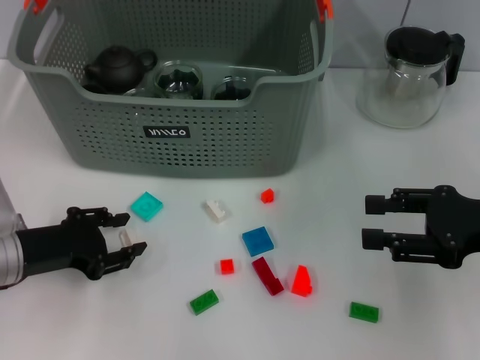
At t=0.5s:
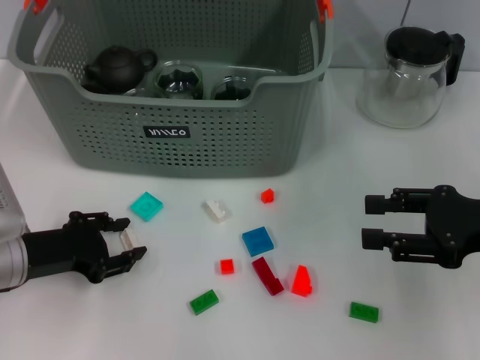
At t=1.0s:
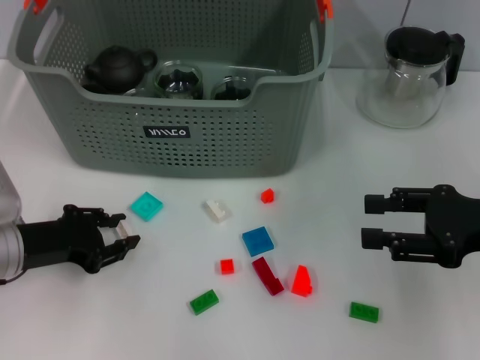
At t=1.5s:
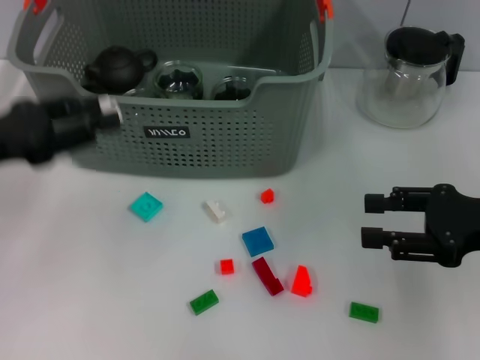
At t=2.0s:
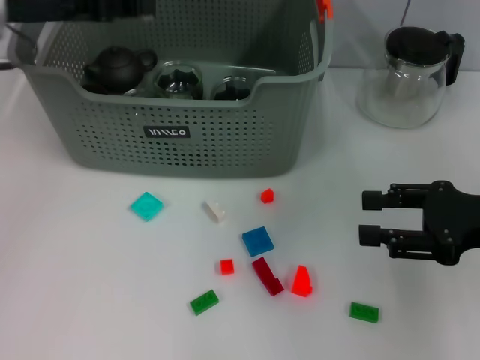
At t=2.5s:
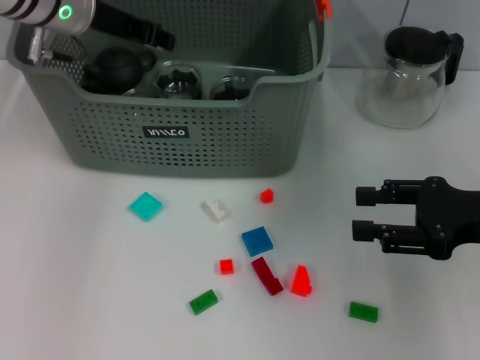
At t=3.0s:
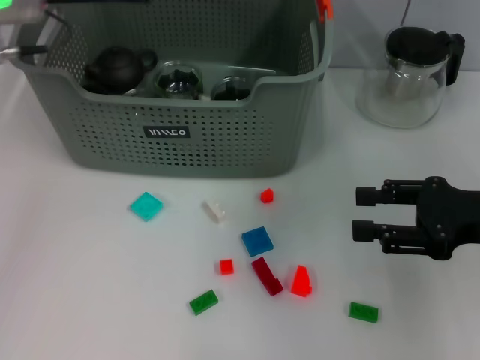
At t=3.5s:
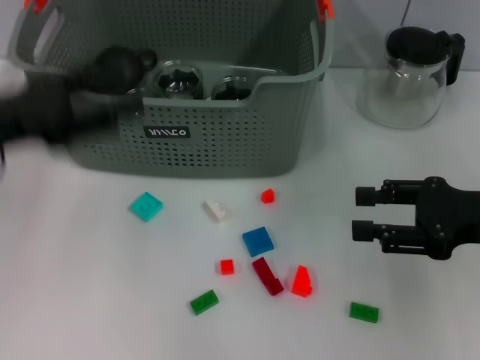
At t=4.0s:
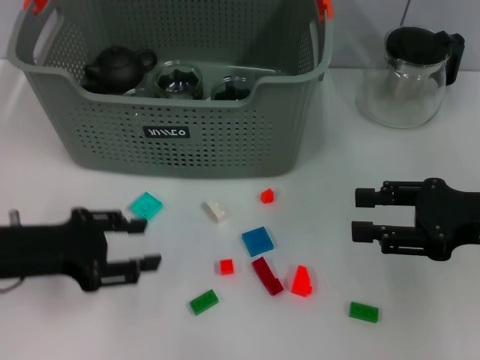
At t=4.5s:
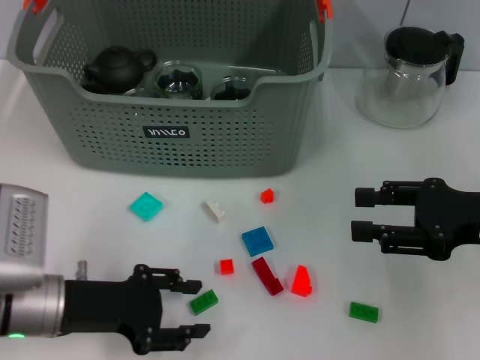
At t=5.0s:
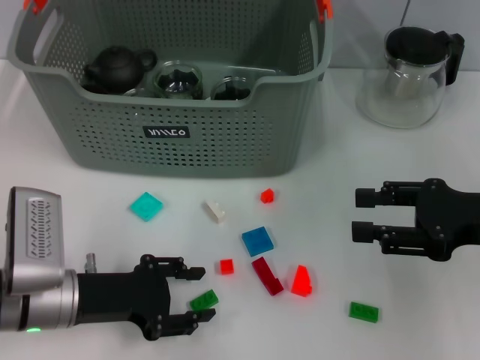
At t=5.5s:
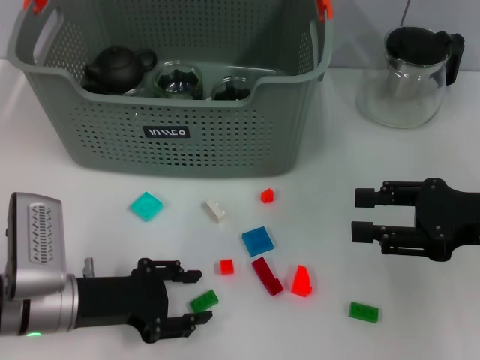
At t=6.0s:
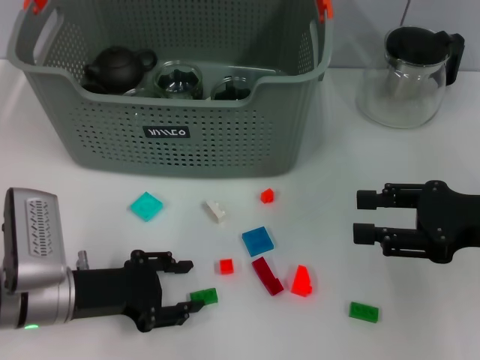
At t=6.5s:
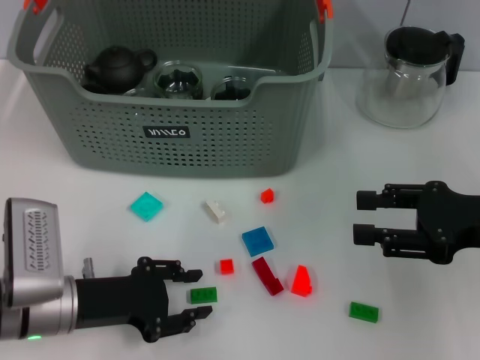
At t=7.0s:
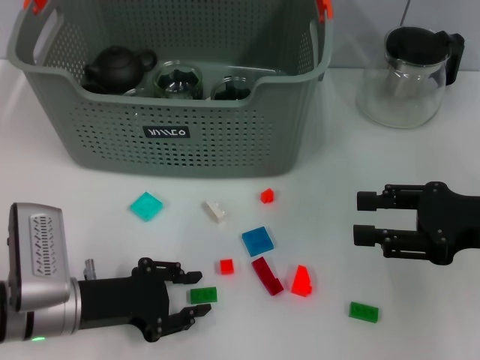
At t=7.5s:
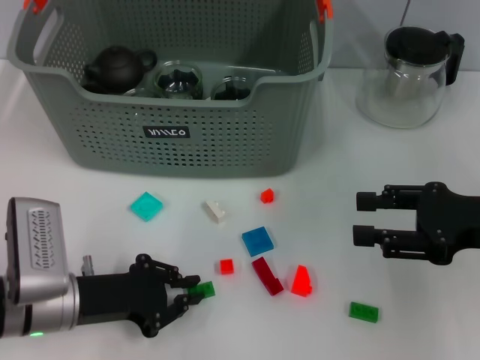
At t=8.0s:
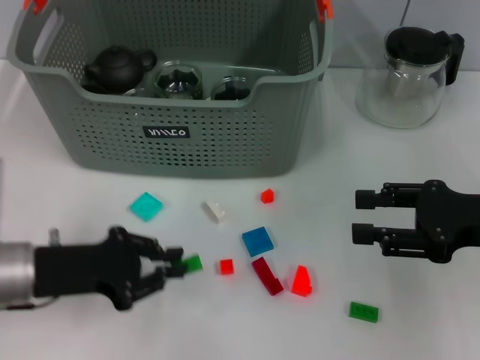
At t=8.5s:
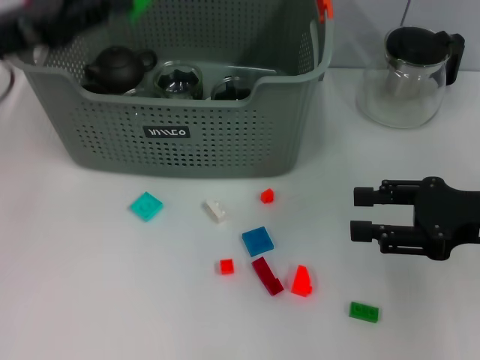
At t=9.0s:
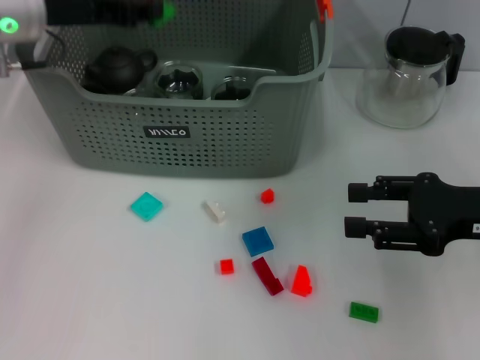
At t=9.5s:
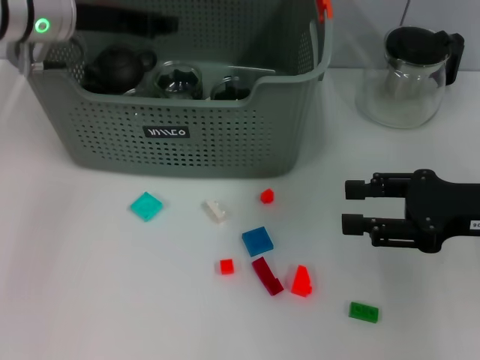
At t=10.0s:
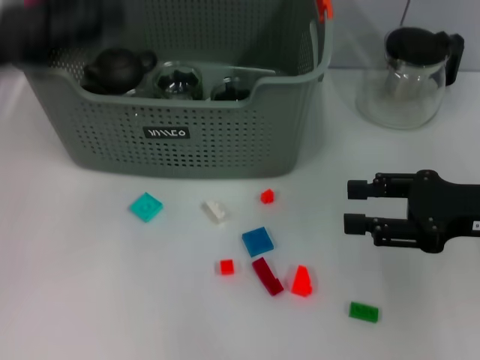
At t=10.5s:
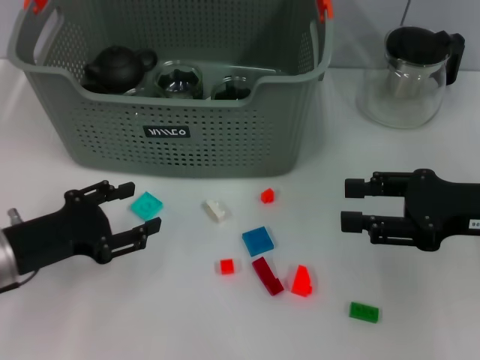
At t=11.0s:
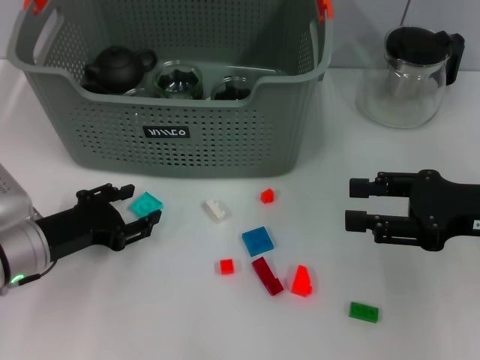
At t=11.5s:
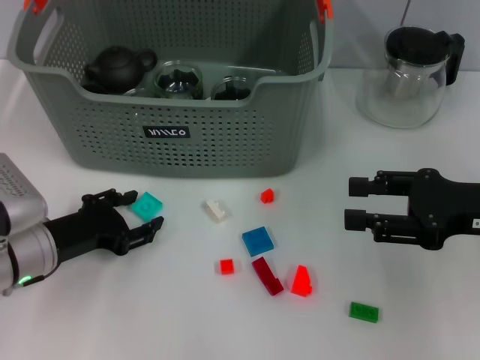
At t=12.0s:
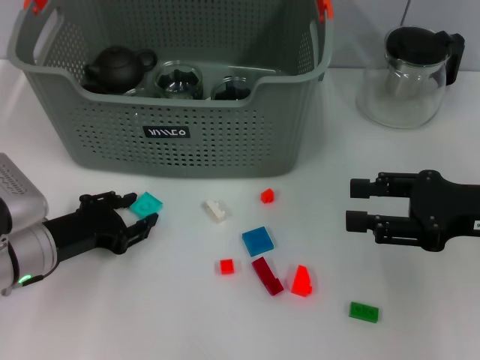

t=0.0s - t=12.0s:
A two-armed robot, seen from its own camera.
Task of the whole recording: pick up the teacup on the table and place it into the storage bin, pick up the block on the table and place it into the storage bin.
Step, t=1.0s - t=2.5s: Place the white block in the storage box with left gripper.
Step, t=3.0s - t=7.0s: Grasp the green block with left gripper.
Step, t=8.0s - t=9.5s: Place the green block in the storage box with left gripper.
t=0.0s - t=2.0s: The left gripper heads upward and forward, covering roughly 20 cm.
t=2.0s - t=4.0s: The left gripper shifts some 20 cm backward and downward.
t=4.0s - t=6.0s: The left gripper shifts approximately 10 cm downward.
t=6.0s - t=8.0s: The left gripper closes its fingers.
t=8.0s - t=10.0s: The left gripper goes some 15 cm upward, reaches about 20 cm forward, then returns, and opens up.
t=10.0s - t=12.0s: The left gripper shifts about 20 cm downward.

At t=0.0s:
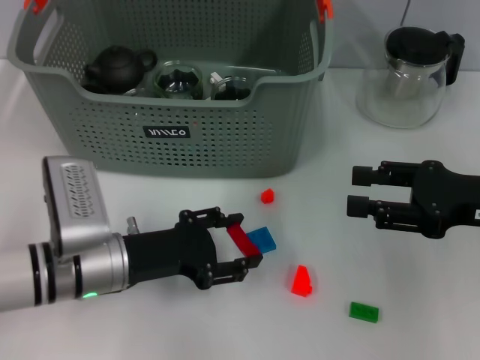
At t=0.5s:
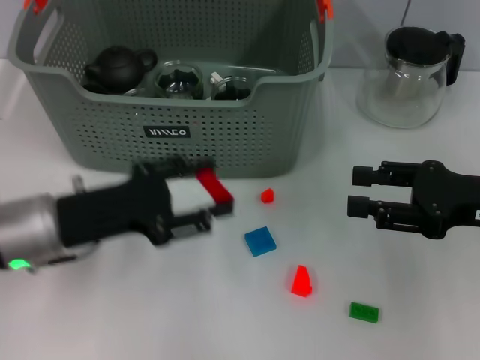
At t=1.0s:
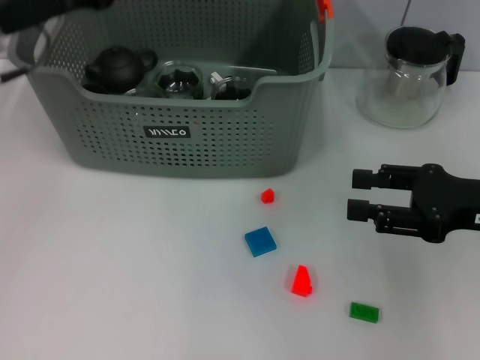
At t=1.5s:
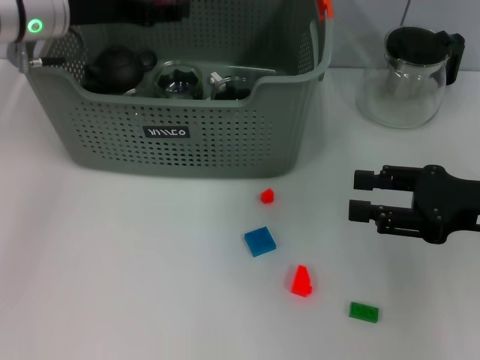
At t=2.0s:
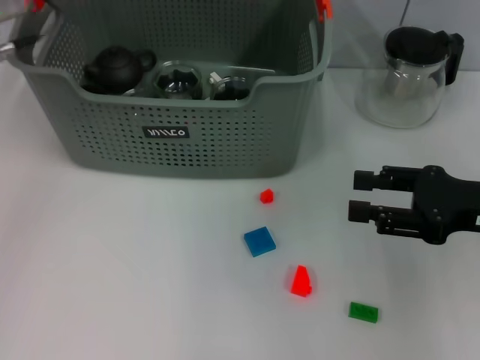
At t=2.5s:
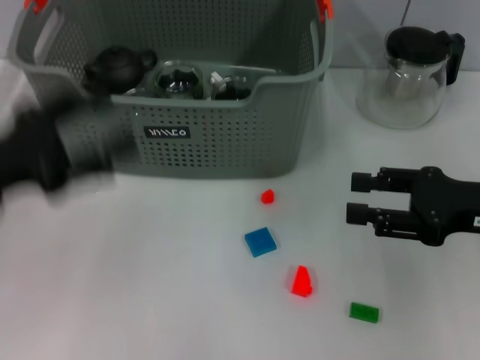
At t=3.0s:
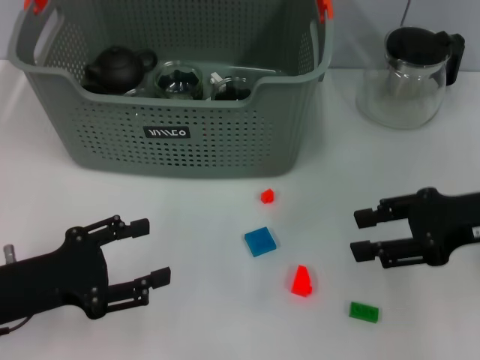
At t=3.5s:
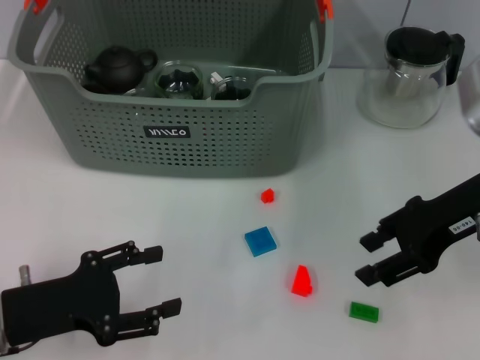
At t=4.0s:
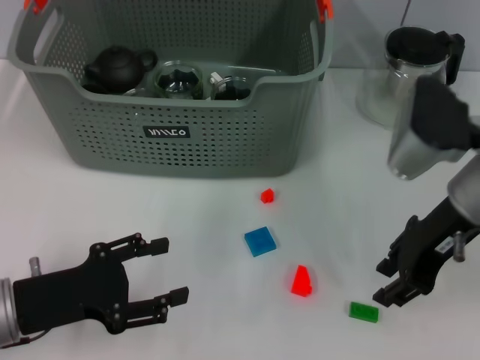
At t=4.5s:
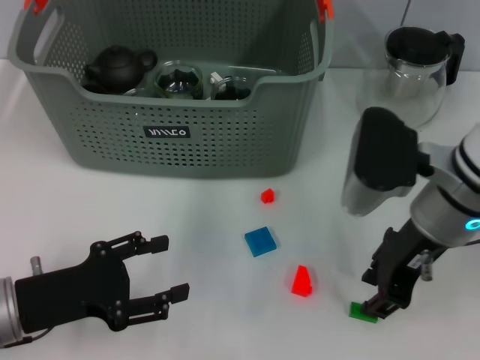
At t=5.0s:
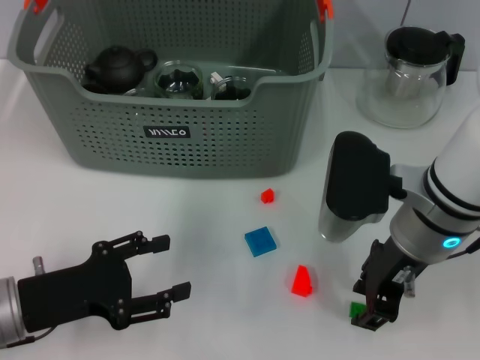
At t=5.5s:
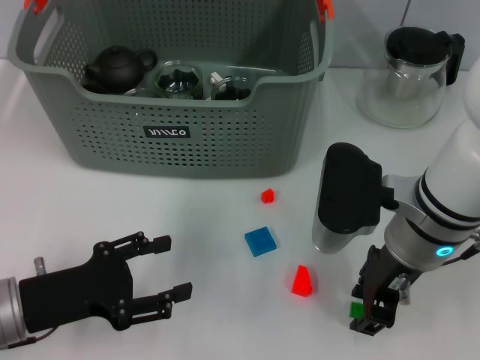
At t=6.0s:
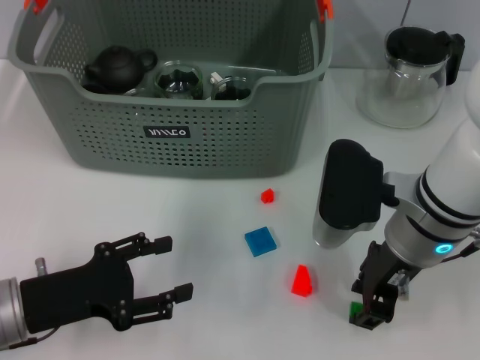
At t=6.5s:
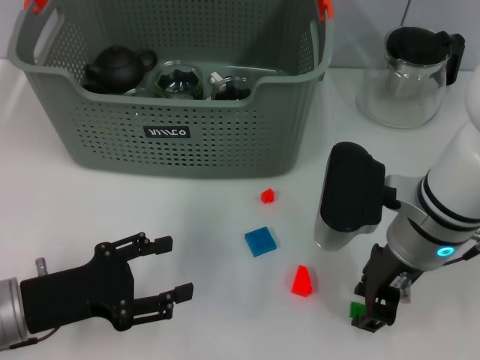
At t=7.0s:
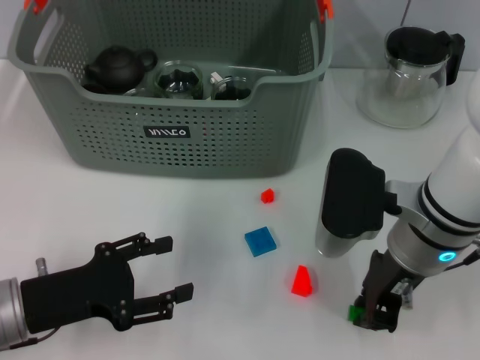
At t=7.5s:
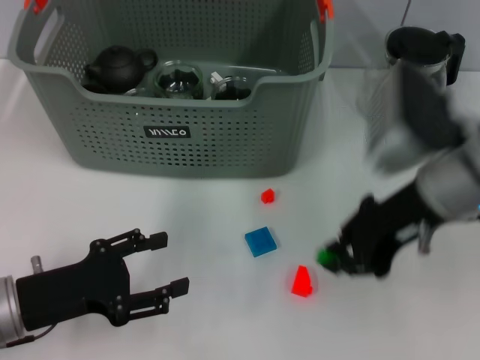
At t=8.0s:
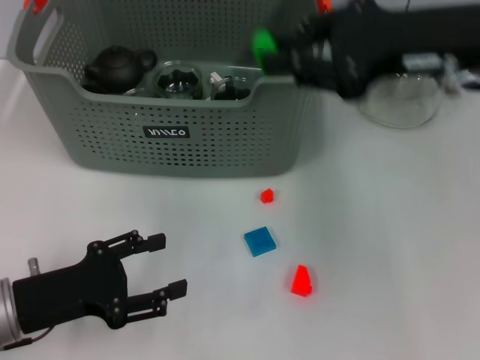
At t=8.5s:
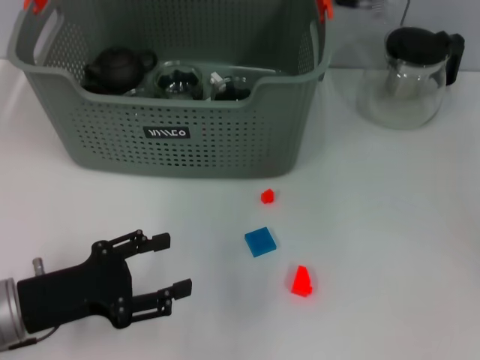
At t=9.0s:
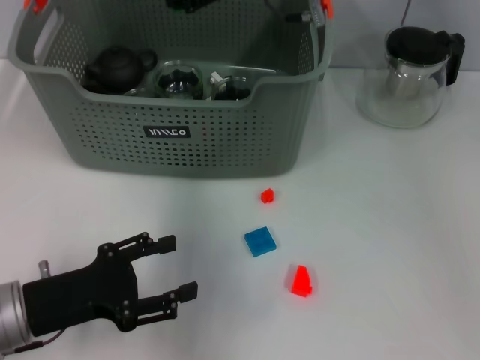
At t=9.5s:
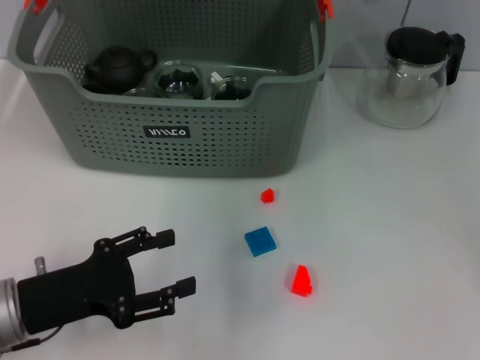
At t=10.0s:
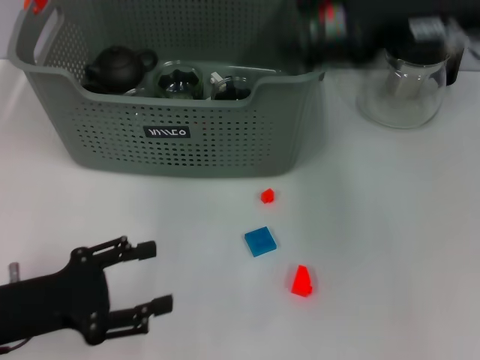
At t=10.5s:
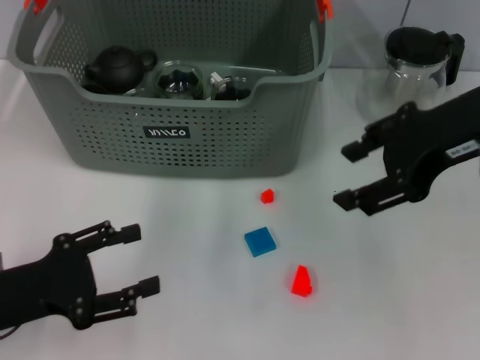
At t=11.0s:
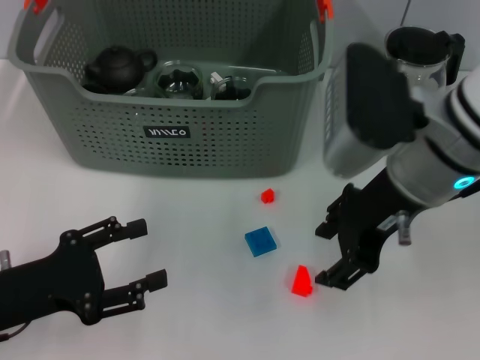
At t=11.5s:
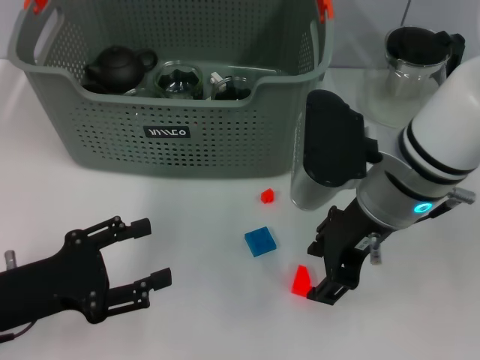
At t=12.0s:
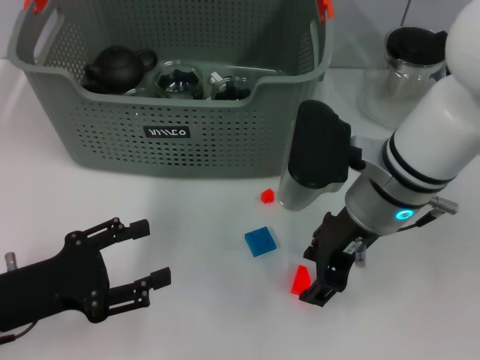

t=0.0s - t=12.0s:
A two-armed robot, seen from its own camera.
Task of the whole recording: pick up the teacup on the table and place it into the storage bin, pick up the block on the table and place it into the storage bin.
Step, t=0.0s - t=1.5s: Place the red block in the storage box with left gripper.
Step, t=2.0s - t=6.5s: Grasp the green block with right gripper.
Step, t=7.0s - t=9.0s: Place the green block in the storage box with right gripper.
t=0.0s - t=2.0s: The left gripper travels upward and forward by approximately 20 cm.
t=2.0s - t=4.0s: The left gripper heads backward and downward, covering roughly 25 cm, while the right gripper is displaced to the left by approximately 10 cm.
t=4.0s - t=6.0s: The right gripper shifts approximately 5 cm to the left.
t=6.0s - t=8.0s: The right gripper goes approximately 15 cm upward, and closes up.
t=8.0s - t=10.0s: The right gripper goes to the left and returns, some 15 cm each way, and opens up.
t=10.0s - t=12.0s: The right gripper is displaced downward and to the left by approximately 15 cm.

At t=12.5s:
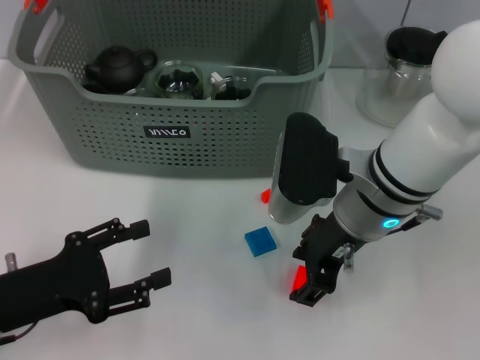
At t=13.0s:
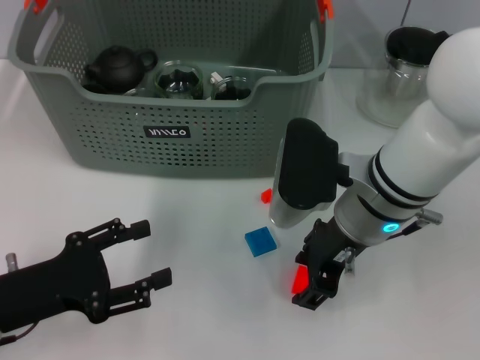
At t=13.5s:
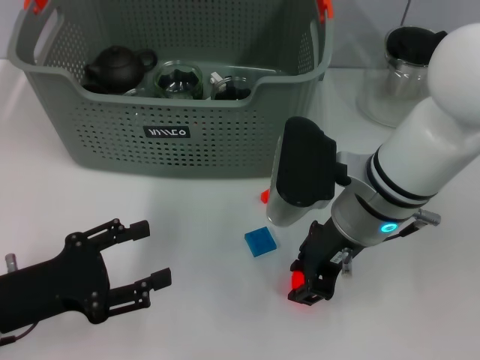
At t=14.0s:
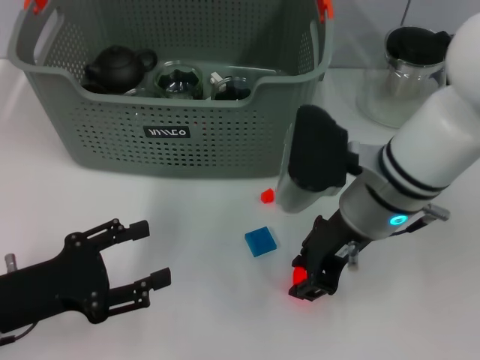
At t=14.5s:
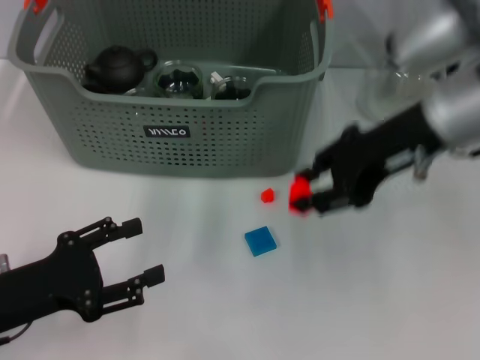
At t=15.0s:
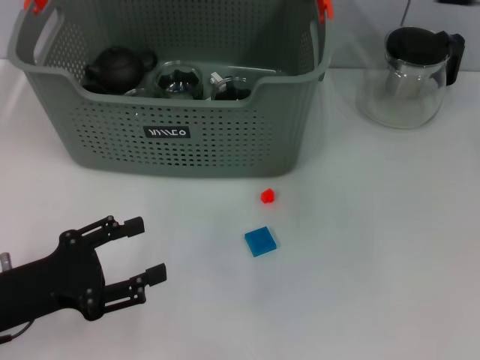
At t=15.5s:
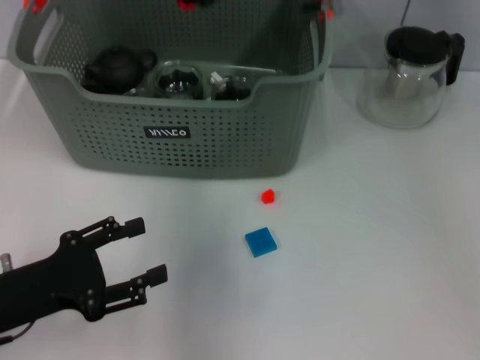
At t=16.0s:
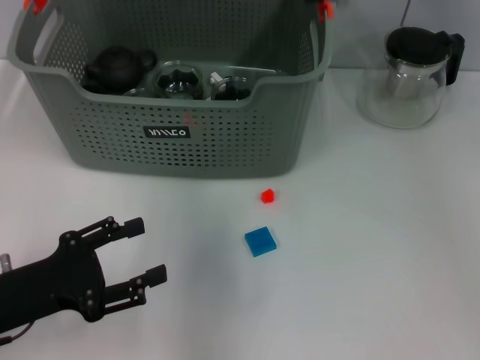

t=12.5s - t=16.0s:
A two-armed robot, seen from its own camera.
Task of the whole recording: pick up the teacup on the table and place it into the storage bin, pick up the block on the table and place it into the storage bin.
Step, t=13.5s - t=15.5s: Place the orange block in the storage box with right gripper.
t=12.5s - t=14.5s: The right gripper goes approximately 10 cm upward and to the right, and closes its fingers.
t=14.5s - t=16.0s: The right gripper goes about 15 cm forward and to the left.
